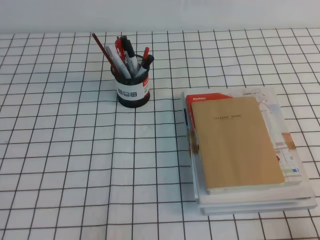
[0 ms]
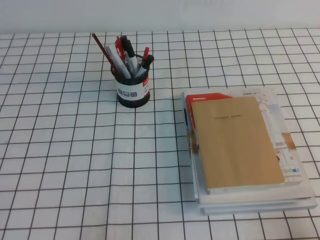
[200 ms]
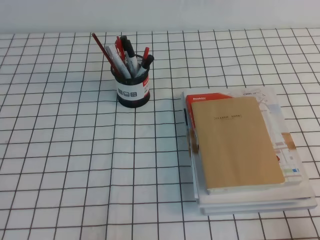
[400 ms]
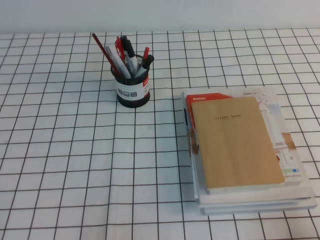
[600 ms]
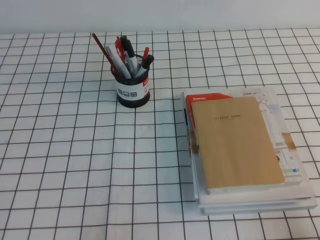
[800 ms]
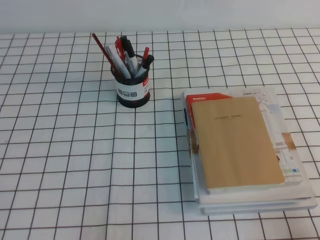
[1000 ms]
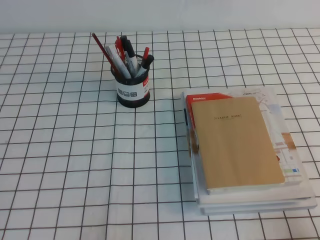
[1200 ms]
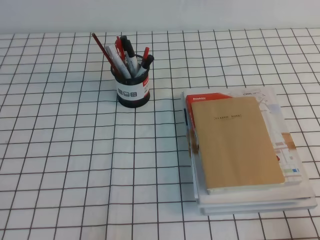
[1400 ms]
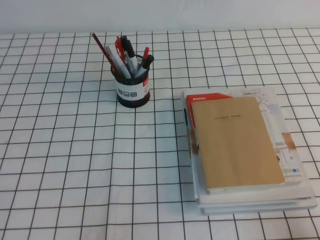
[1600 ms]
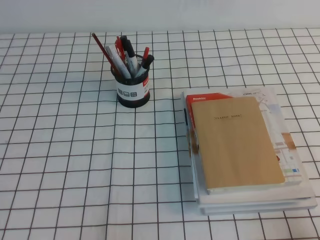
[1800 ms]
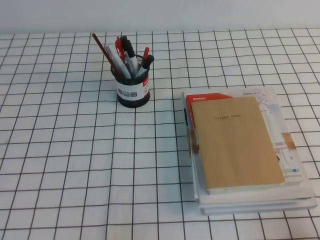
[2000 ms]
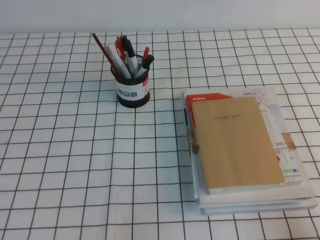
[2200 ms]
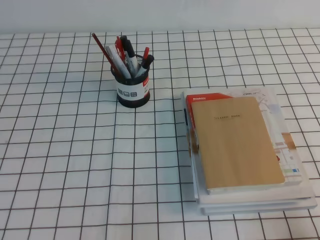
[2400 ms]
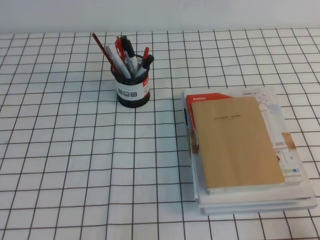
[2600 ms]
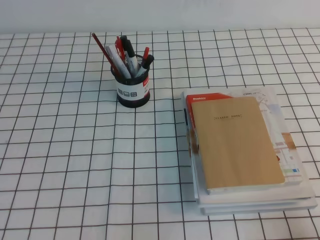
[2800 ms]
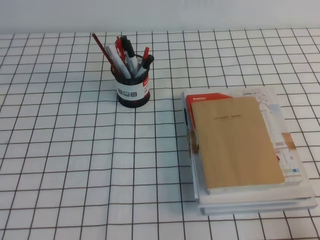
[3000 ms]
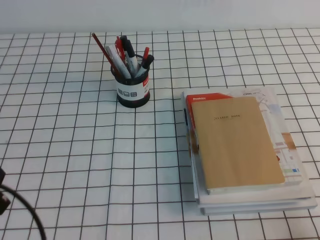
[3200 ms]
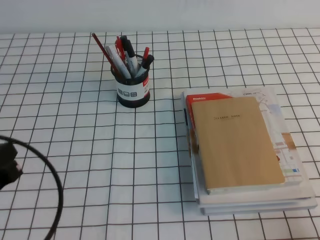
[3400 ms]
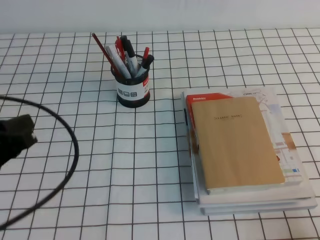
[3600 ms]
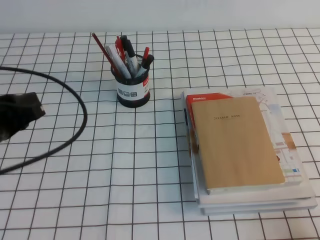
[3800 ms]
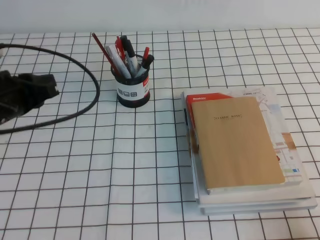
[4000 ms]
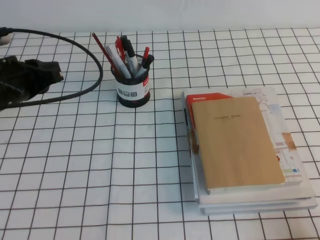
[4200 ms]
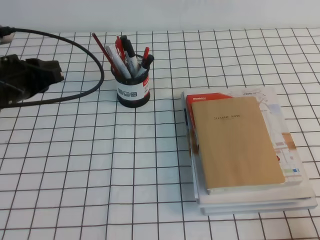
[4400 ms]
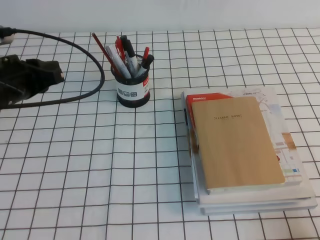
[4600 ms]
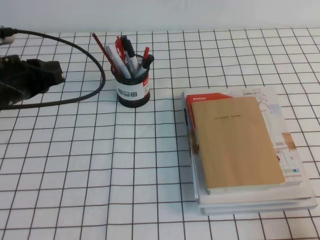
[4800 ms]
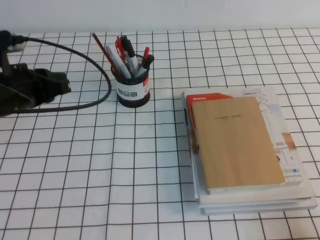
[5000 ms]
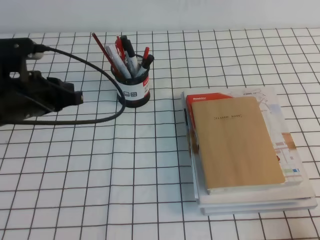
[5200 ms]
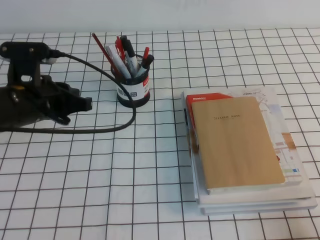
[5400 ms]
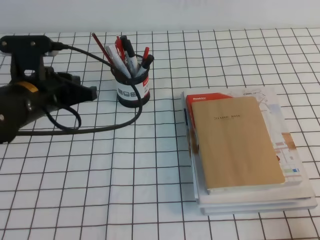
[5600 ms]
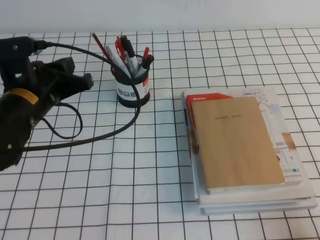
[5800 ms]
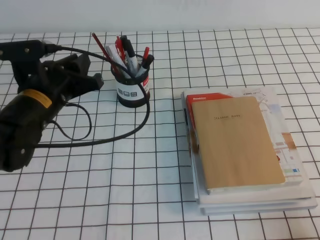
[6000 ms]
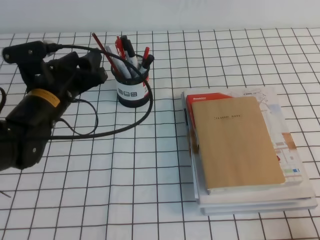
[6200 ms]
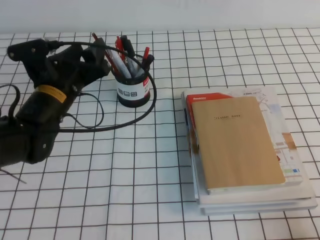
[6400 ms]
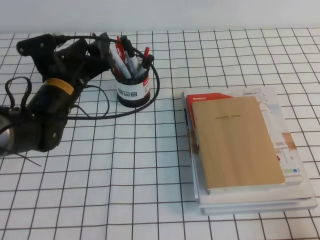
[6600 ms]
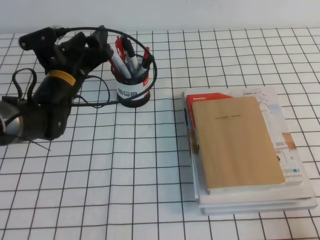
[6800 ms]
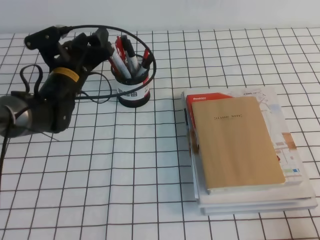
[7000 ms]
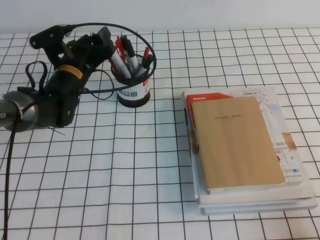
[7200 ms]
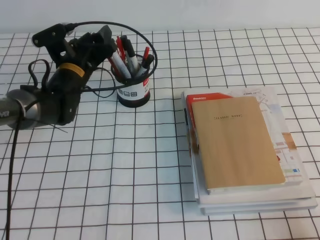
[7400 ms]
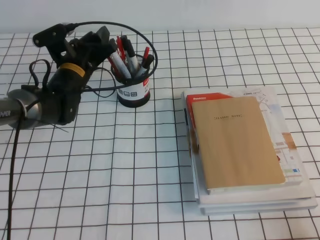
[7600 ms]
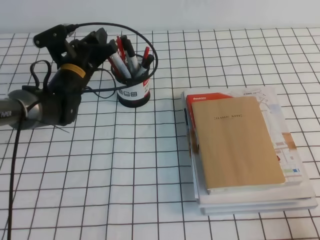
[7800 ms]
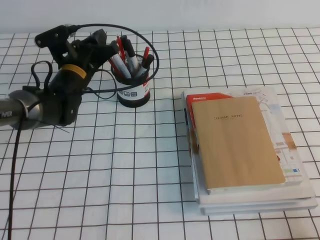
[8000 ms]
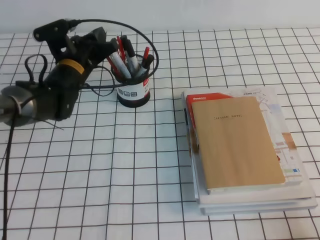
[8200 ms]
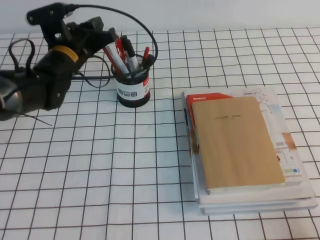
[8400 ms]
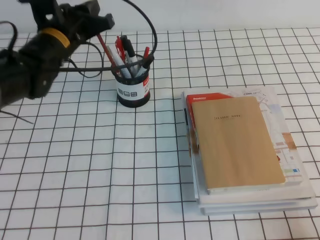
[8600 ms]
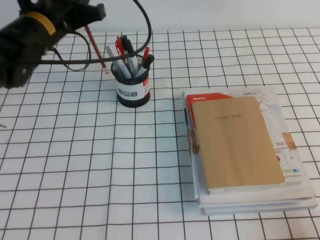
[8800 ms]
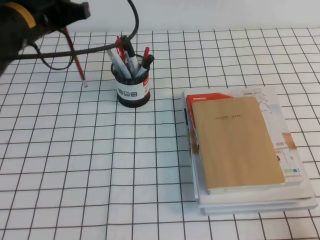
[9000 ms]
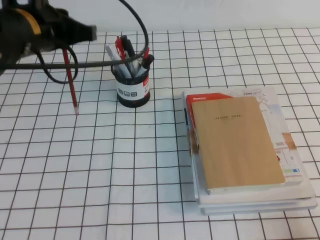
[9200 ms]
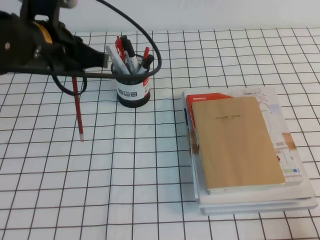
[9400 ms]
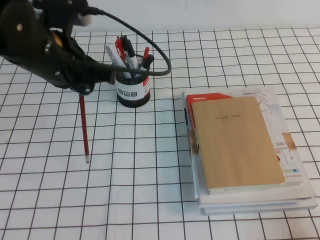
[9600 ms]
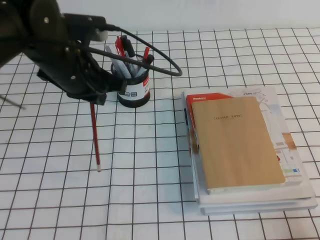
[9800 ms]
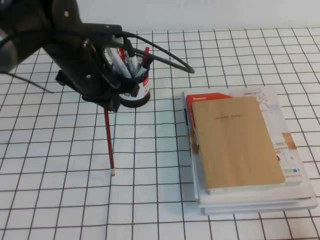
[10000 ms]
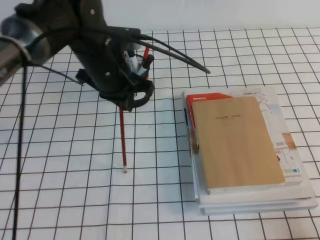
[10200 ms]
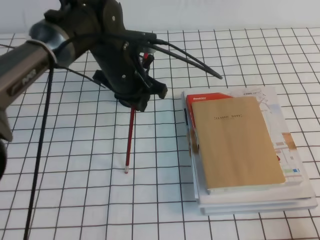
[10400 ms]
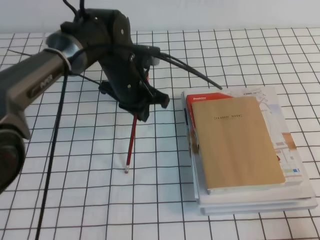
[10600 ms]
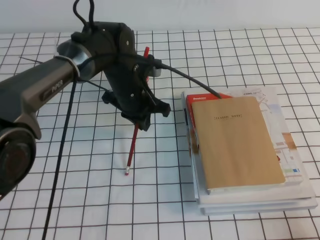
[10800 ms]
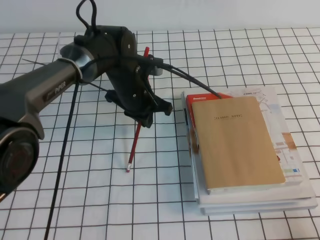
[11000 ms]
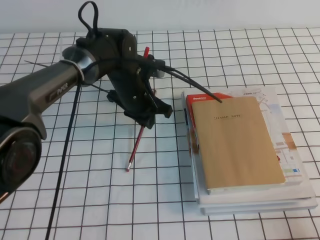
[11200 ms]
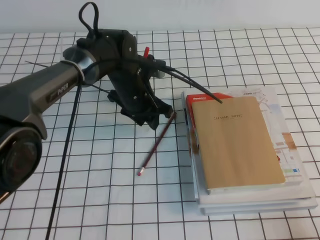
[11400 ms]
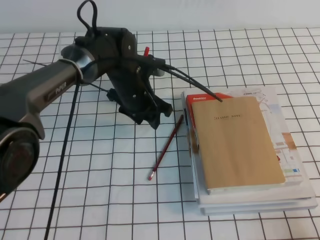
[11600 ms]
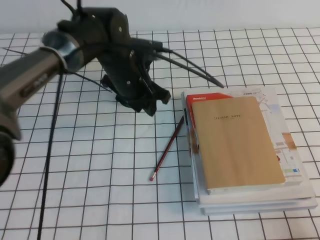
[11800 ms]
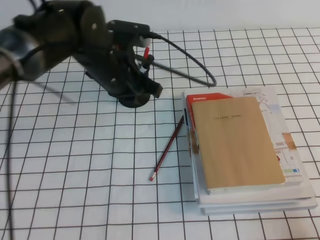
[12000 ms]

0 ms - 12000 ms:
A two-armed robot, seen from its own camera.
0 ms - 1600 ms: Both grippers stay put.
3000 ms - 4400 ms: The left gripper heads forward, covering roughly 25 cm.
4400 ms - 6000 ms: The left gripper heads to the right, covering roughly 5 cm, and opens up.
6000 ms - 7600 ms: The left gripper shifts some 15 cm forward and downward.
7600 ms - 9000 ms: The left gripper goes some 15 cm upward and backward, and closes its fingers.
9000 ms - 10400 ms: The left gripper shifts roughly 15 cm to the right and downward.
10400 ms - 12000 ms: The left gripper moves approximately 5 cm downward and comes back, and opens, then closes once more.

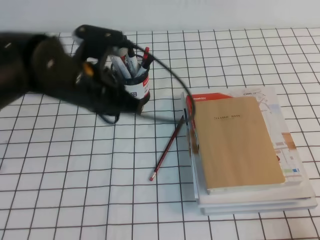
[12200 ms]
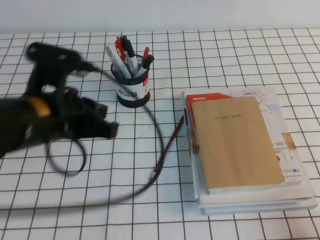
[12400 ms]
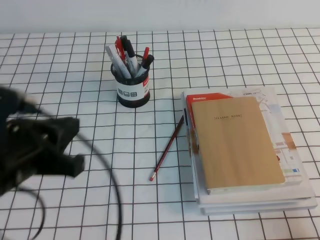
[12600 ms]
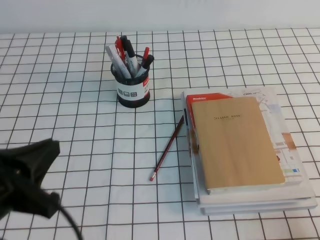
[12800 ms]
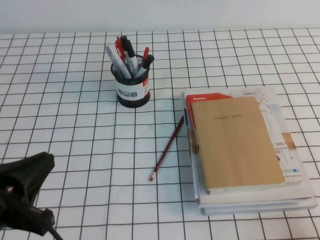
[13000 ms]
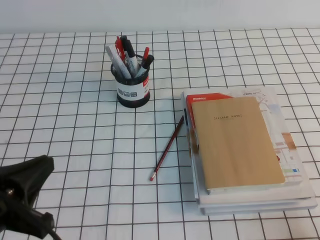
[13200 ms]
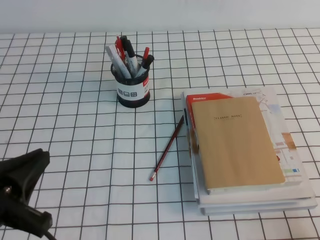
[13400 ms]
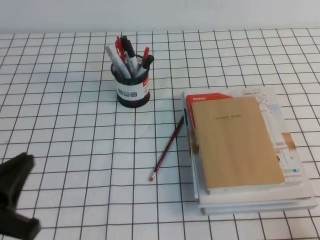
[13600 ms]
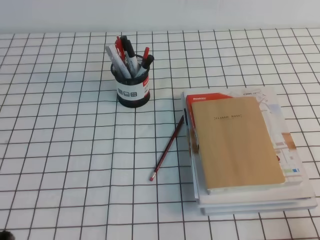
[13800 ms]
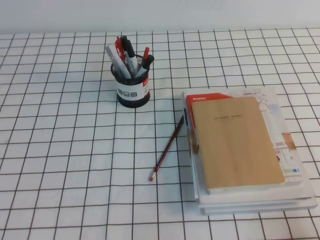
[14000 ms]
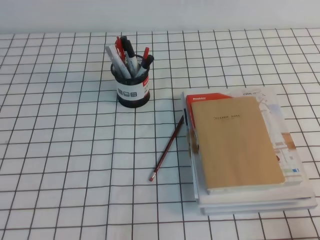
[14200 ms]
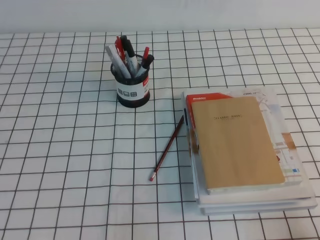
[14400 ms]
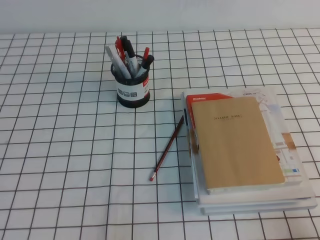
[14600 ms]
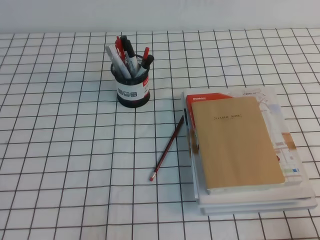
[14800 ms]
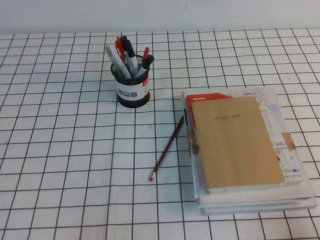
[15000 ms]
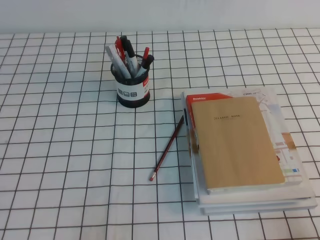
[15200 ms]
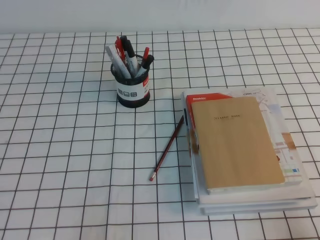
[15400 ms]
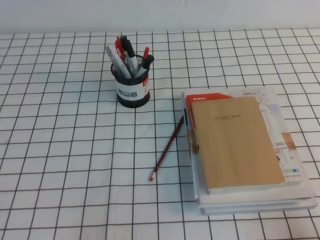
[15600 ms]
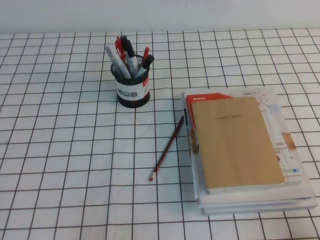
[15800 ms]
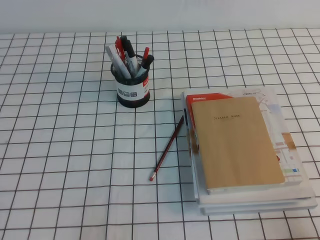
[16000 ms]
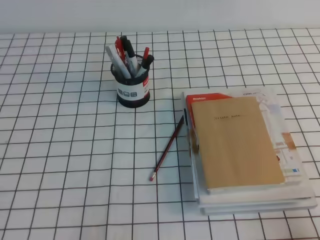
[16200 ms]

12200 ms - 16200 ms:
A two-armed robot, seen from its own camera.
Step, 12200 ms - 16200 ms: Pick up the pen from the pen holder.
12200 ms - 13600 ms: The left gripper moves backward and to the left, approximately 25 cm.
13600 ms - 14800 ms: The left gripper moves downward, some 10 cm.
14800 ms - 16200 ms: The two grippers keep their place.
